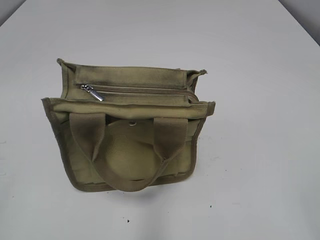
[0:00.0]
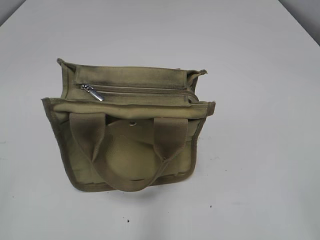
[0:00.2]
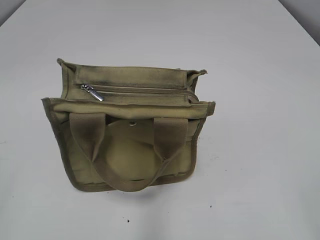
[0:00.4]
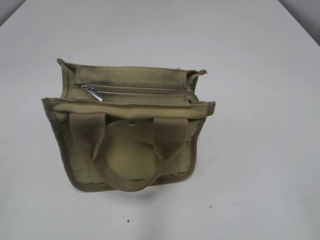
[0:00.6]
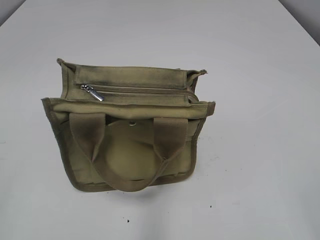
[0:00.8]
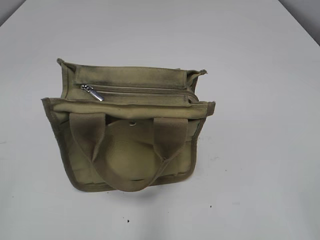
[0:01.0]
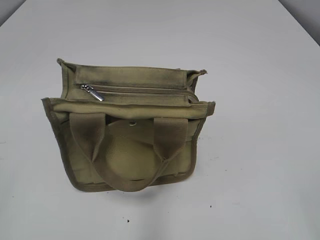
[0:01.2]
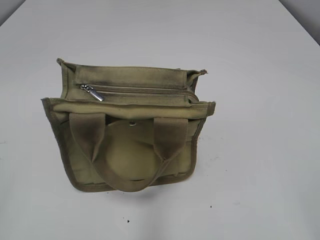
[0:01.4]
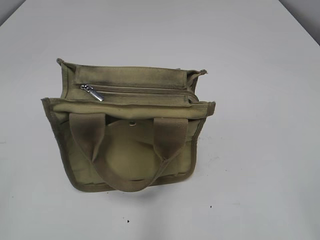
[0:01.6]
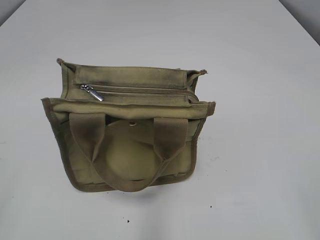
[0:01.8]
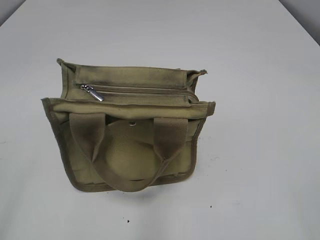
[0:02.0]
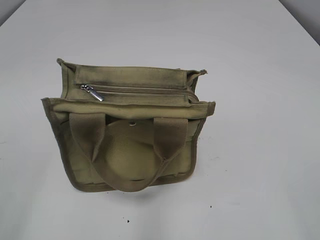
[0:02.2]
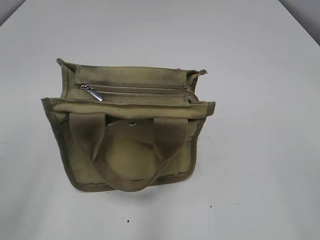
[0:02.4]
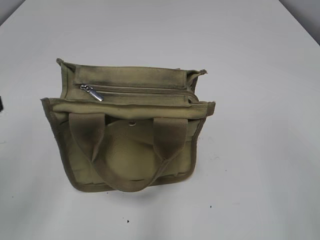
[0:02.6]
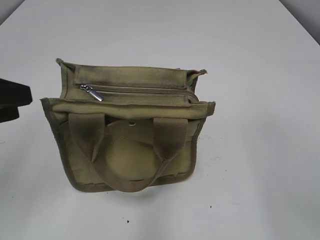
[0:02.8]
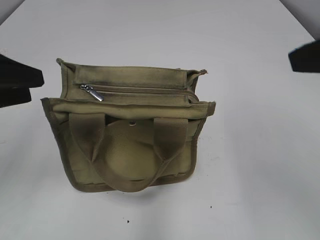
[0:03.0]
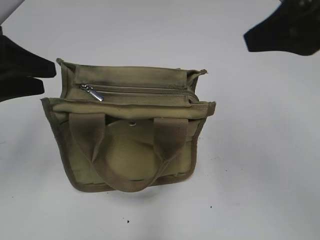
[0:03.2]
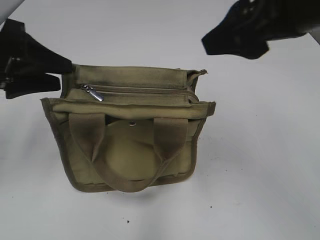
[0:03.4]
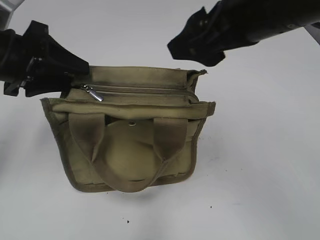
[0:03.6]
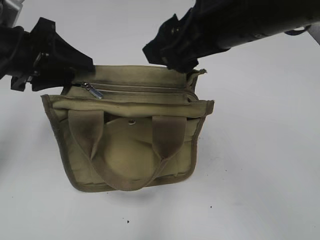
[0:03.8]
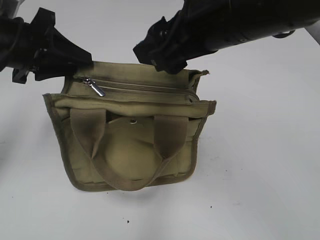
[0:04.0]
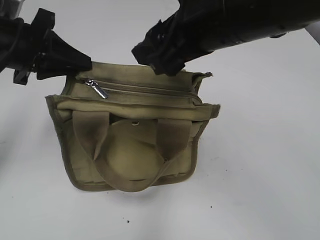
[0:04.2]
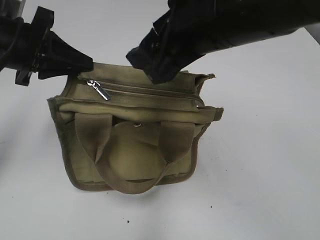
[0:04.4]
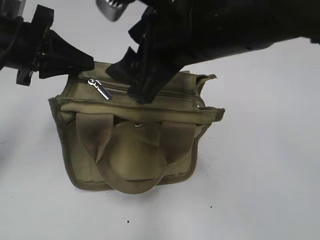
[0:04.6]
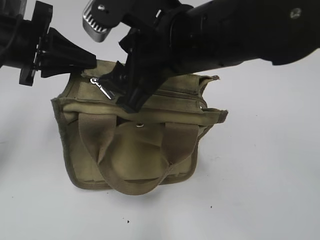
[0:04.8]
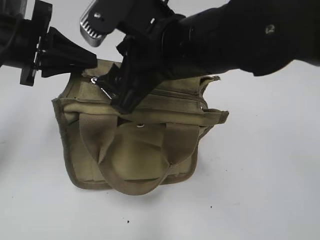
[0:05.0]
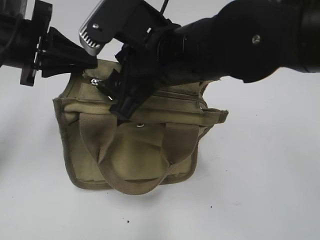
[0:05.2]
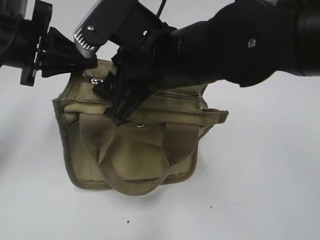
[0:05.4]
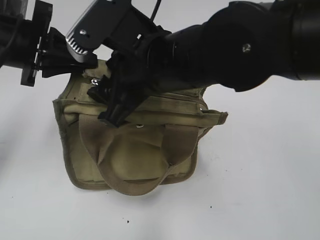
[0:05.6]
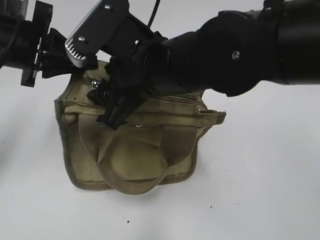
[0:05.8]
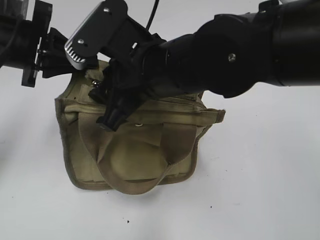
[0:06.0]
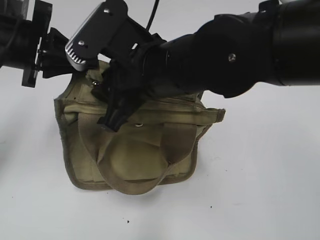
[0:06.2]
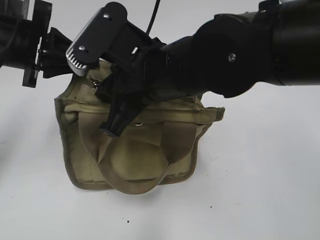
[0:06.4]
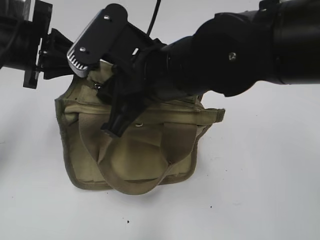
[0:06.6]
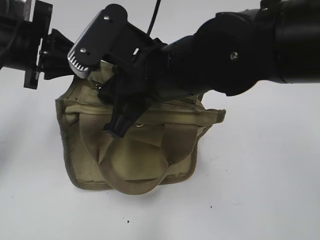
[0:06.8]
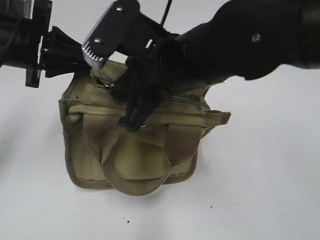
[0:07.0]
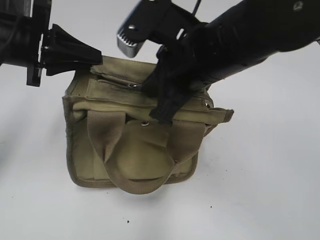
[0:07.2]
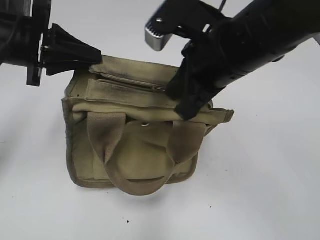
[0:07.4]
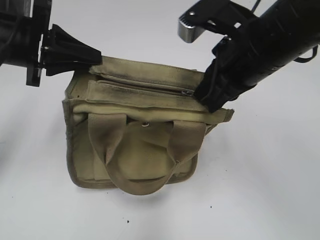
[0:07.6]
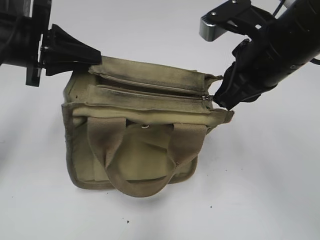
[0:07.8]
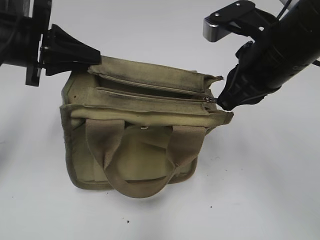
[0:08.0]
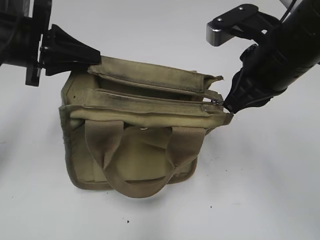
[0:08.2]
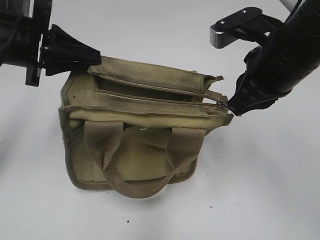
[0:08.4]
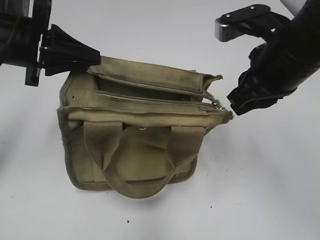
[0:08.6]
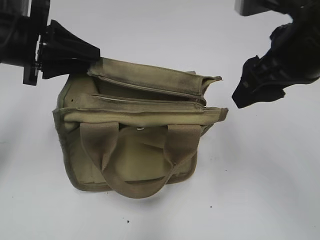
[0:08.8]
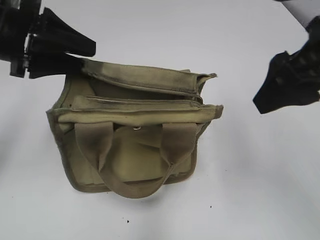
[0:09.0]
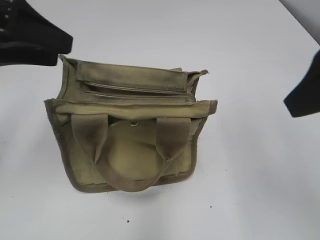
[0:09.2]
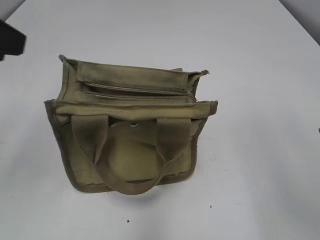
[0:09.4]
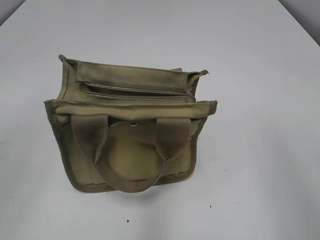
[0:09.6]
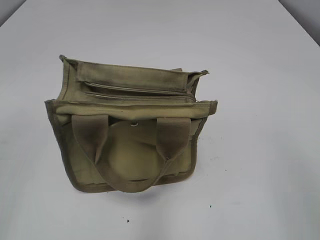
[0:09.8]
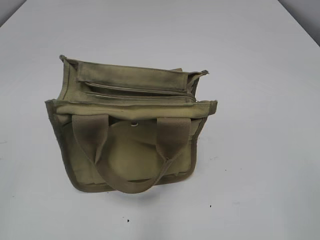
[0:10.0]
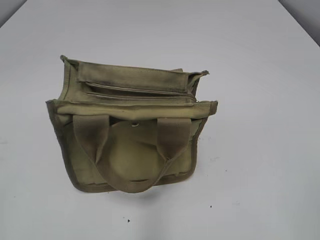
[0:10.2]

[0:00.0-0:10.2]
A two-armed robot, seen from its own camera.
Step, 0:00.0 to 0:08.4: Pull open the zipper with your right hand.
Step, 0:08.8 to 0:09.0: Hold the bag with your left hand.
0:01.4 to 0:03.0: The right gripper shifts approximately 15 cm forward and upward; the left gripper goes approximately 20 cm forward.
0:03.0 to 0:04.4: The left gripper is displaced forward by roughly 10 cm, and closes up, while the right gripper goes about 20 cm to the left and forward.
0:04.4 to 0:05.8: The right gripper moves to the left and downward, approximately 10 cm.
0:05.8 to 0:07.2: The right gripper closes.
0:07.2 to 0:08.8: The right gripper is displaced to the right by about 10 cm, and opens.
0:08.8 to 0:10.2: The left gripper is displaced backward by approximately 30 cm, and opens up. The right gripper goes some 30 cm backward and to the right, and opens its fingers.

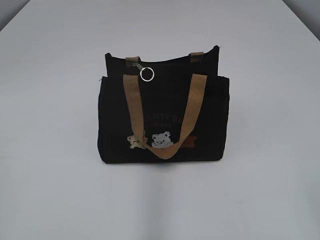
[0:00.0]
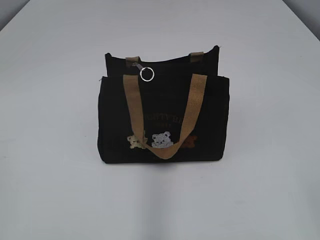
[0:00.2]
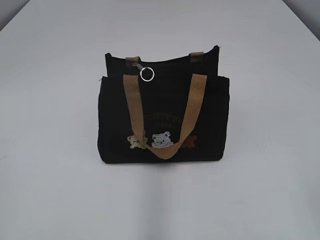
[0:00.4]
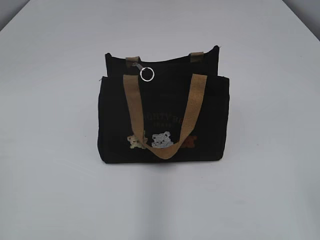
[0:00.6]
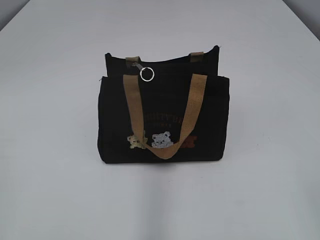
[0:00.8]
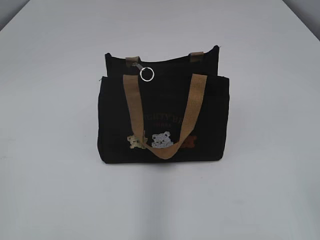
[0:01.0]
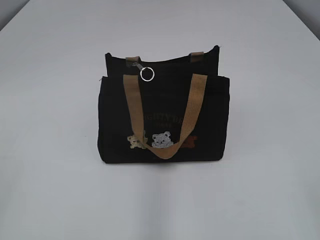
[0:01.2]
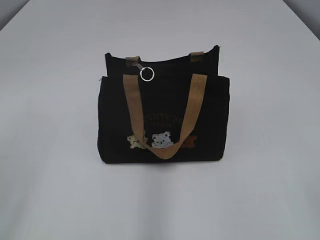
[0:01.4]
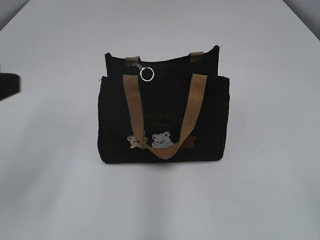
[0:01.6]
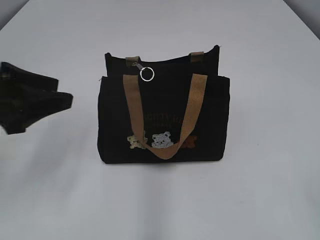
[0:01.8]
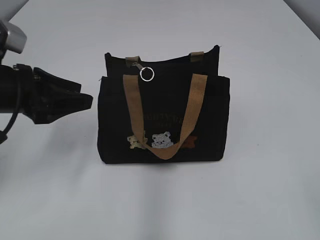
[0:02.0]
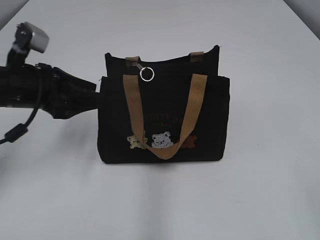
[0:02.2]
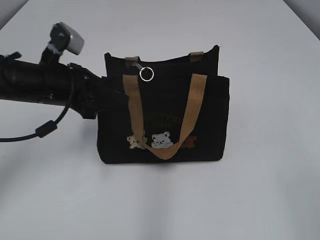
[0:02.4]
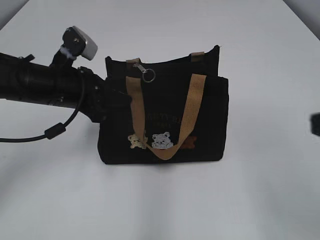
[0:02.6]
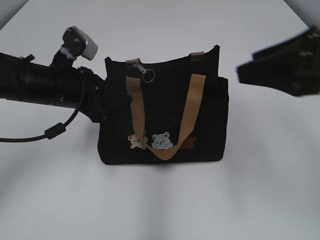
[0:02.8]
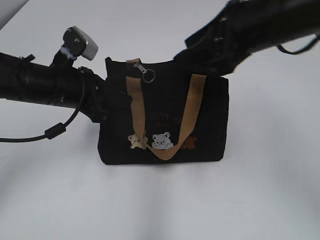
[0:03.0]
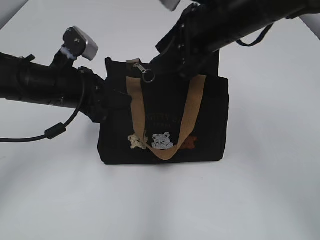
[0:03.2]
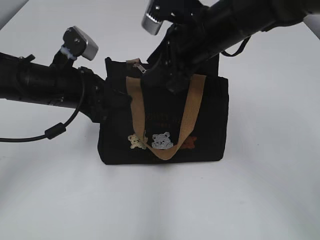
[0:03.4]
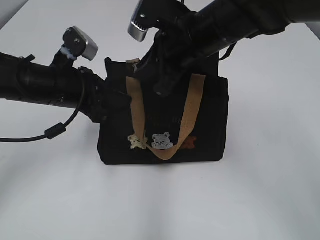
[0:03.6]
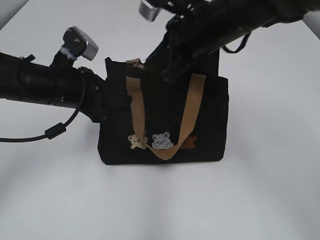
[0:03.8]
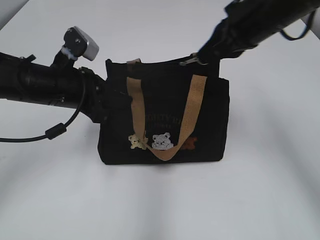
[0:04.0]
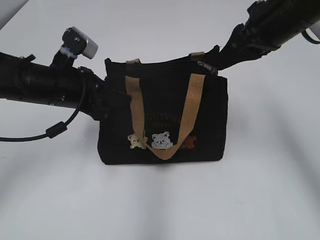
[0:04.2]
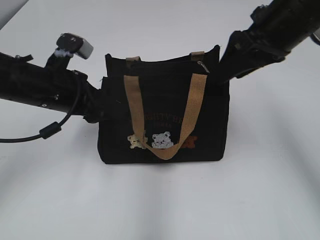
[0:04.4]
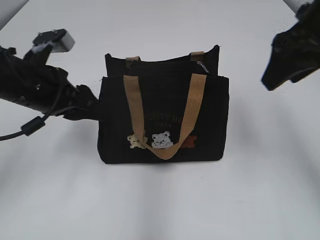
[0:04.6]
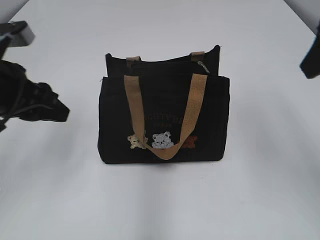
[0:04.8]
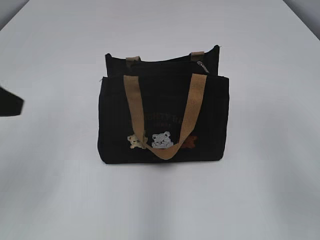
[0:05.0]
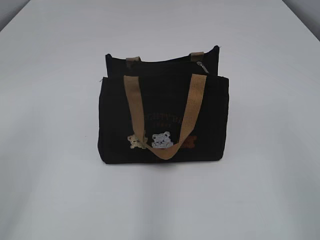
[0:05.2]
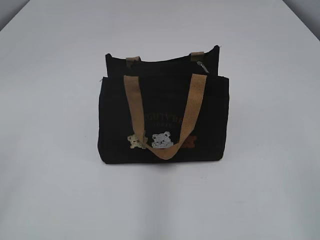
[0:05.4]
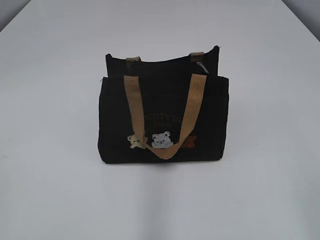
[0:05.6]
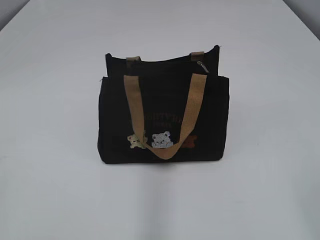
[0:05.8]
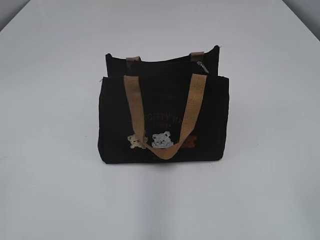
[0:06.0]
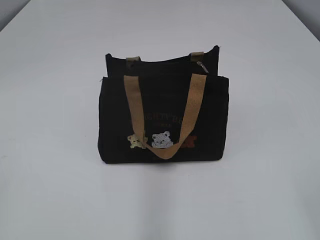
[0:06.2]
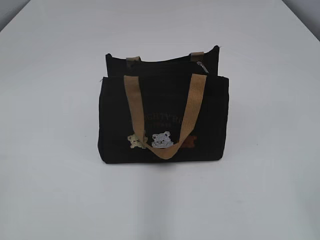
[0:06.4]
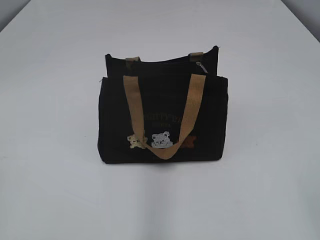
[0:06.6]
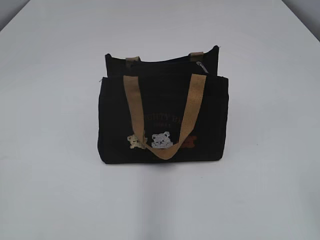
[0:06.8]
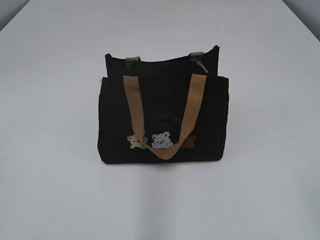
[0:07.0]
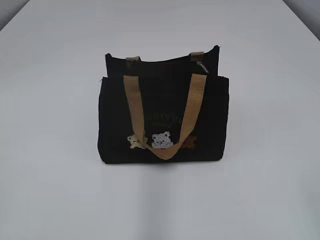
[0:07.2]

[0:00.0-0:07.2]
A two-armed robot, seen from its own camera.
Step, 0:00.0 to 0:04.2: Pull open the zipper with your right hand.
Step, 0:04.4 to 0:04.6: Hold the bag with your left hand.
0:01.4 to 0:02.8: The right gripper travels forward by some 20 cm; the left gripper shifts about 30 cm forward, downward and to the right, and closes.
0:02.8 to 0:04.4: The left gripper opens. The right gripper is displaced forward by approximately 15 cm, and closes, then opens again.
0:04.4 to 0:05.8: The left gripper goes approximately 35 cm backward and to the left. Meanwhile the right gripper is displaced backward by about 30 cm.

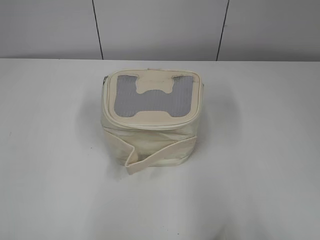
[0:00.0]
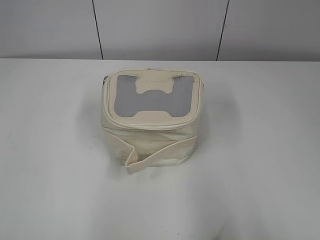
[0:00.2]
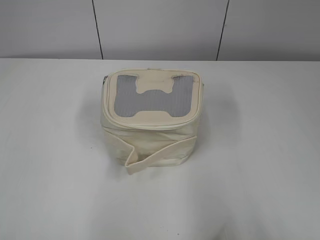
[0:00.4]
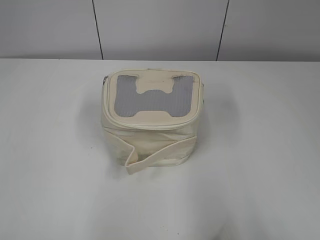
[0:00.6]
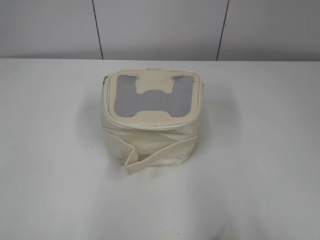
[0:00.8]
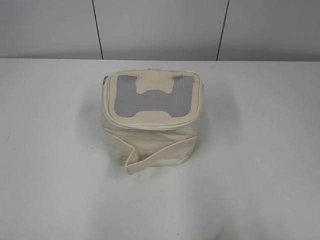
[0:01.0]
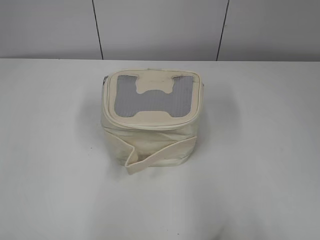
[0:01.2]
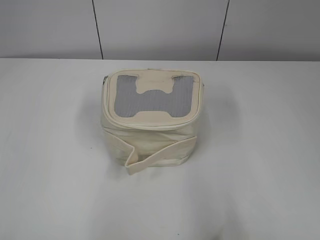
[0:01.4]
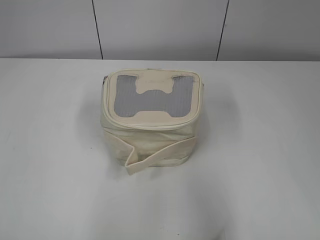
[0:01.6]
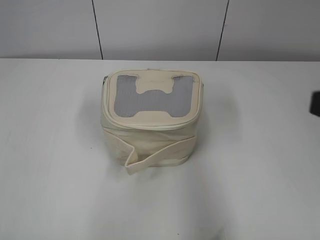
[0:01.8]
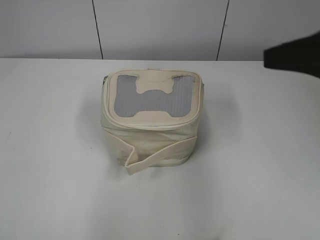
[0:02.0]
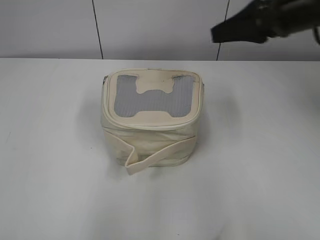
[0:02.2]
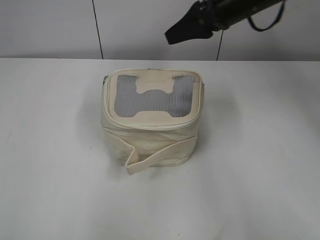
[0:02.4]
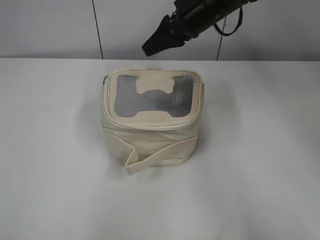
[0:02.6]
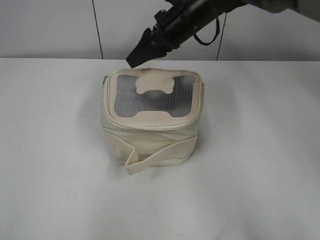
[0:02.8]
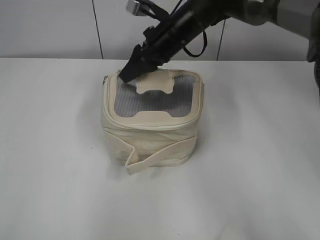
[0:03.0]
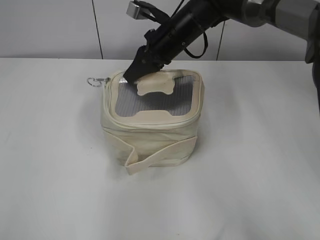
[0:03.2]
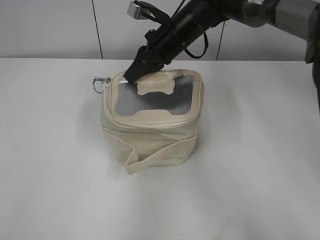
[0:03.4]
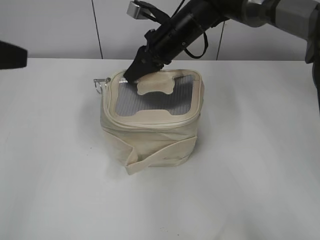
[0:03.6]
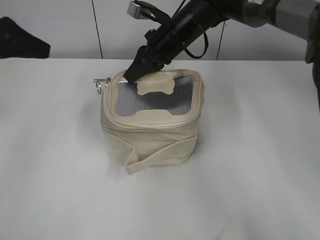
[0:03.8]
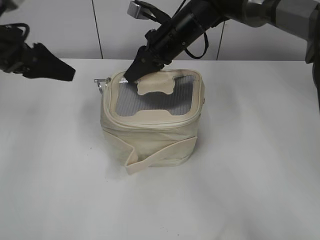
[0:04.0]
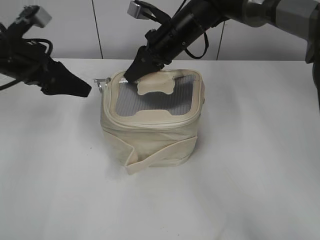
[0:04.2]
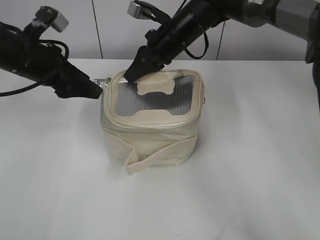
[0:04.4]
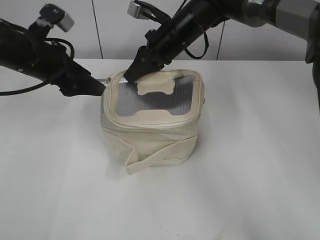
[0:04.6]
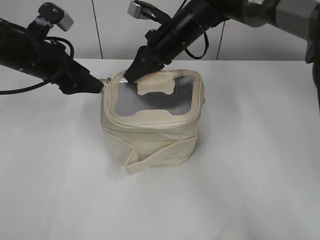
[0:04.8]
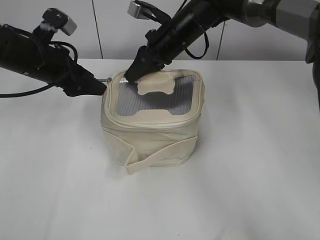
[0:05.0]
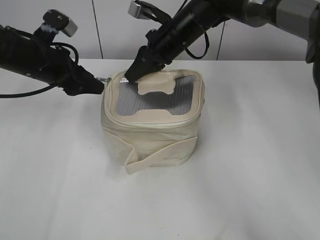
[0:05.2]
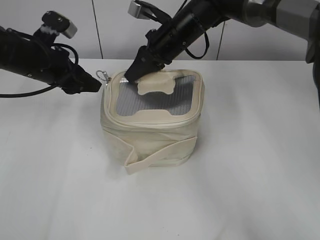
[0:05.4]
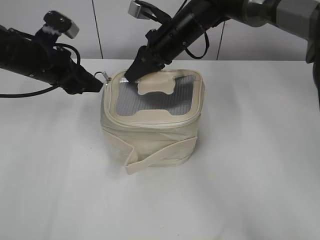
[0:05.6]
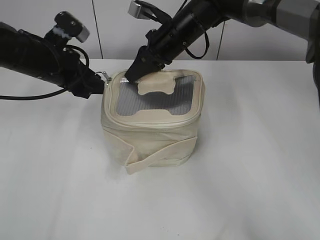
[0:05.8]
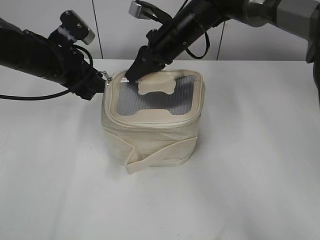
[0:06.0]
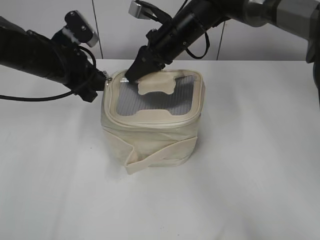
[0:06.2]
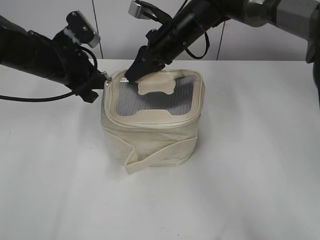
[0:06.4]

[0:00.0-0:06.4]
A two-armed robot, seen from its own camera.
0:01.6 to 0:03.2: The right gripper moves forward and to the left, roughly 50 cm, and closes up.
0:03.2 to 0:04.8: The left gripper is displaced forward by some 35 cm, and opens up.
0:04.8 to 0:06.4: The left gripper closes its fingers.
